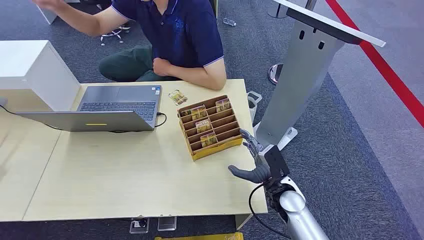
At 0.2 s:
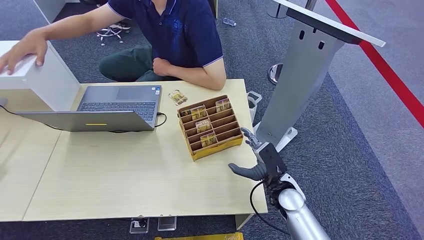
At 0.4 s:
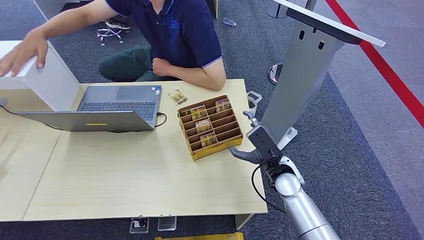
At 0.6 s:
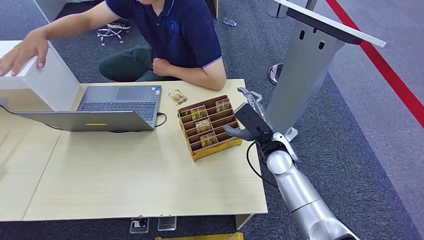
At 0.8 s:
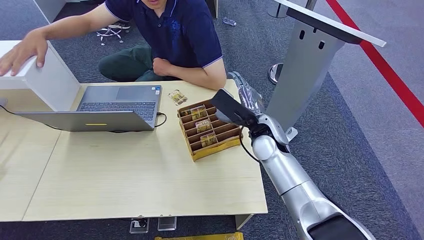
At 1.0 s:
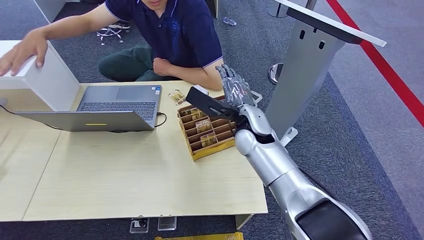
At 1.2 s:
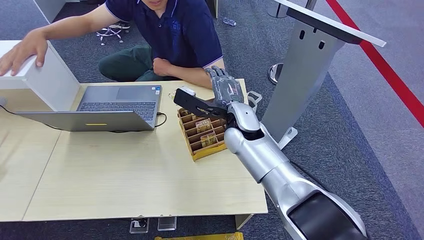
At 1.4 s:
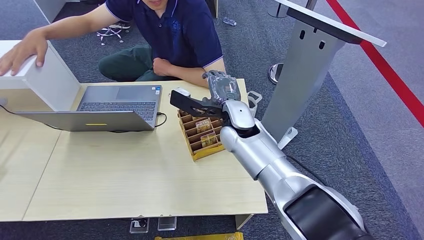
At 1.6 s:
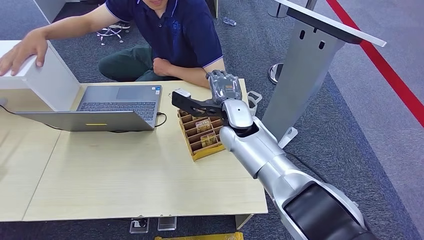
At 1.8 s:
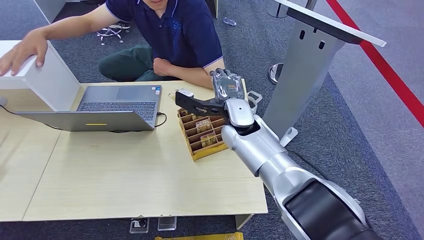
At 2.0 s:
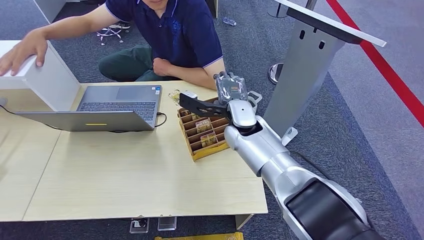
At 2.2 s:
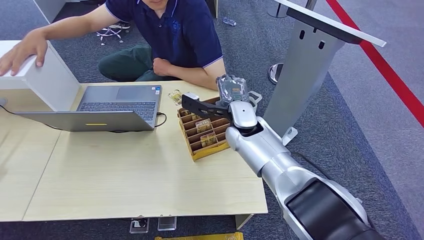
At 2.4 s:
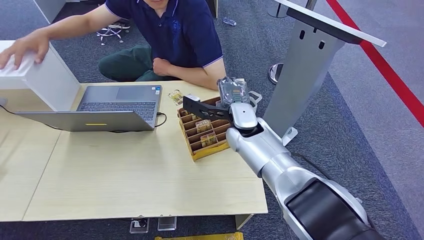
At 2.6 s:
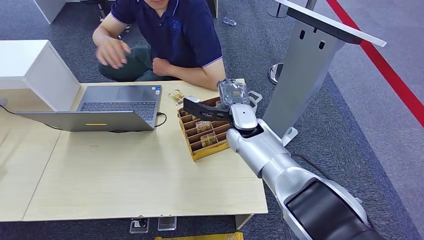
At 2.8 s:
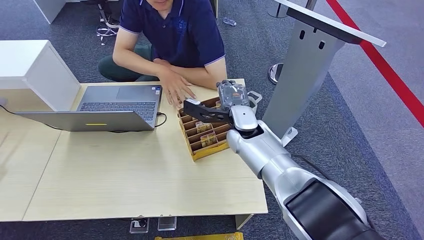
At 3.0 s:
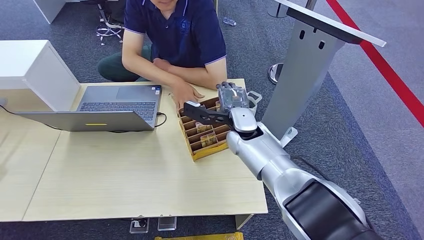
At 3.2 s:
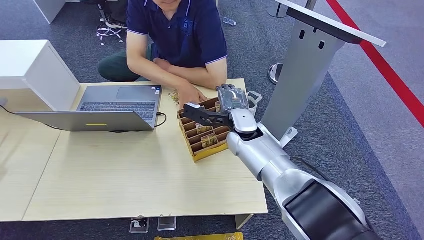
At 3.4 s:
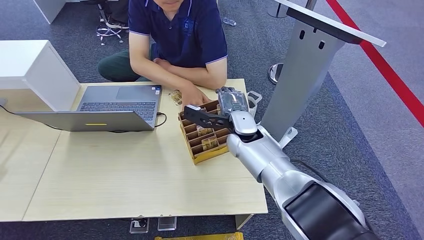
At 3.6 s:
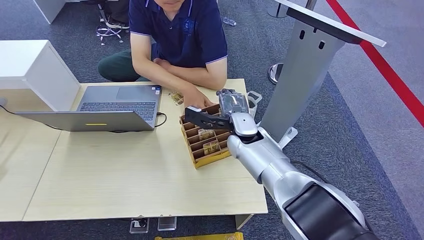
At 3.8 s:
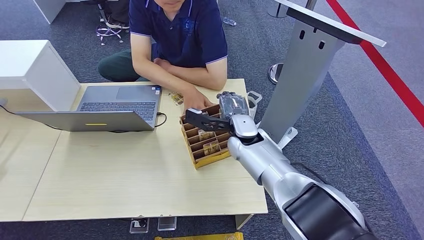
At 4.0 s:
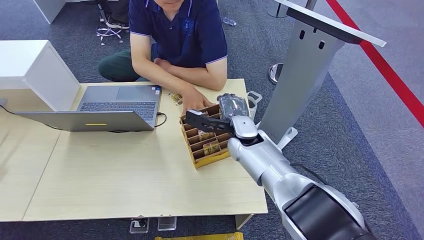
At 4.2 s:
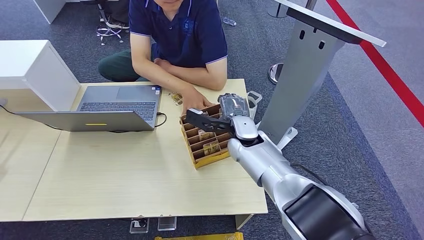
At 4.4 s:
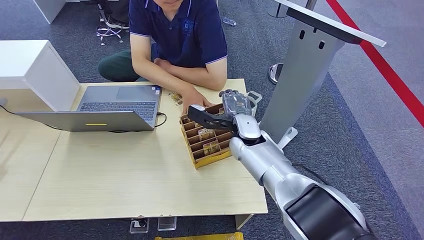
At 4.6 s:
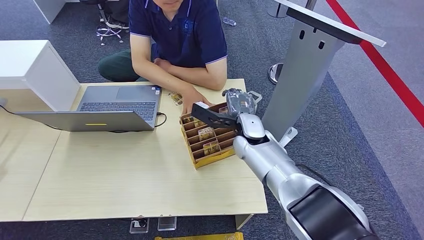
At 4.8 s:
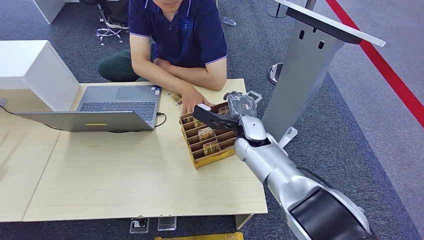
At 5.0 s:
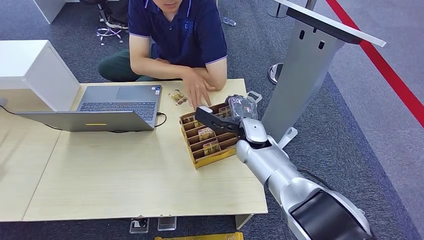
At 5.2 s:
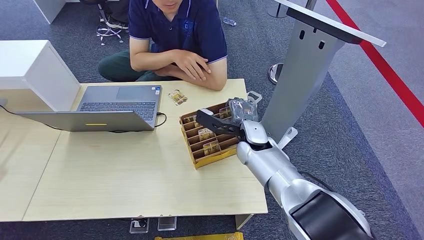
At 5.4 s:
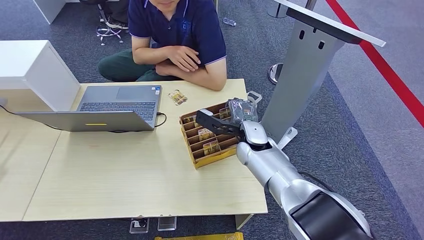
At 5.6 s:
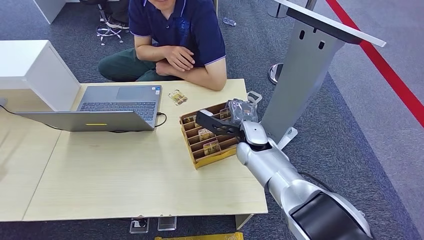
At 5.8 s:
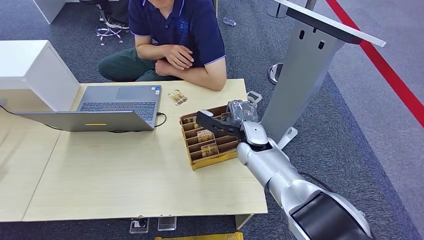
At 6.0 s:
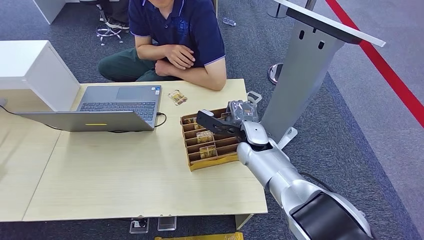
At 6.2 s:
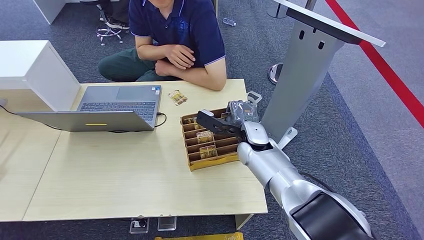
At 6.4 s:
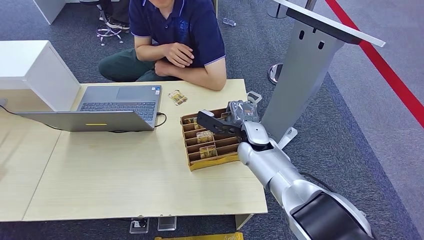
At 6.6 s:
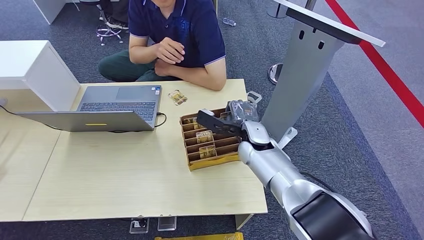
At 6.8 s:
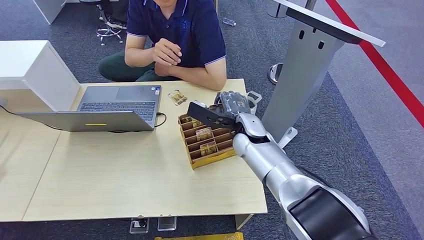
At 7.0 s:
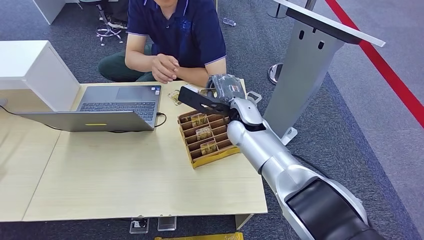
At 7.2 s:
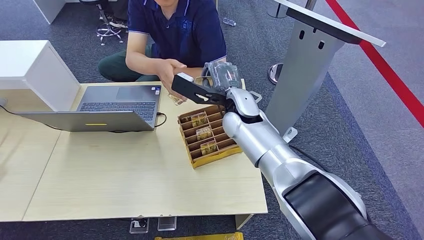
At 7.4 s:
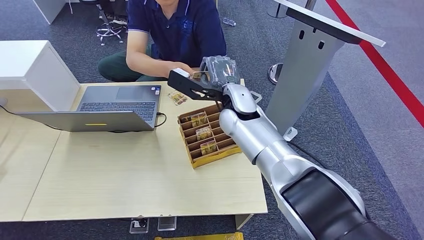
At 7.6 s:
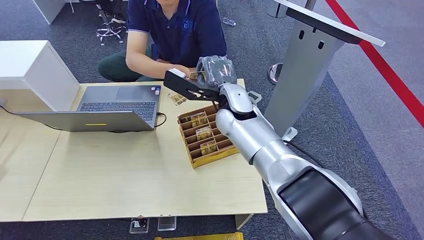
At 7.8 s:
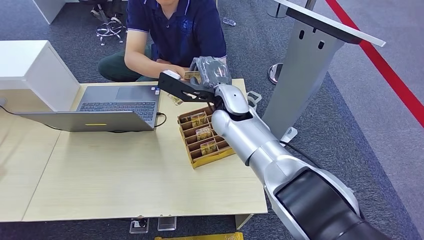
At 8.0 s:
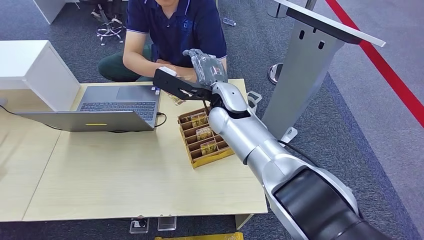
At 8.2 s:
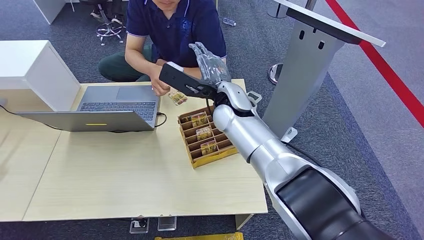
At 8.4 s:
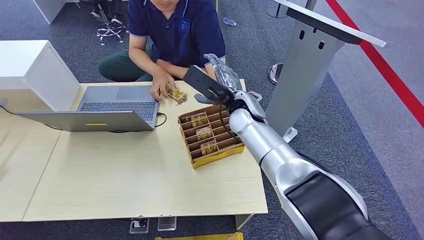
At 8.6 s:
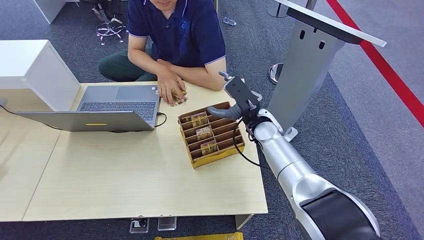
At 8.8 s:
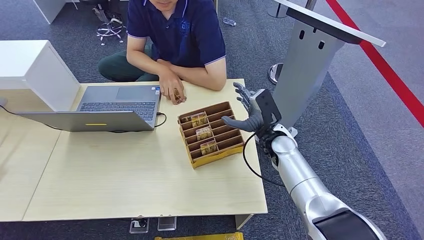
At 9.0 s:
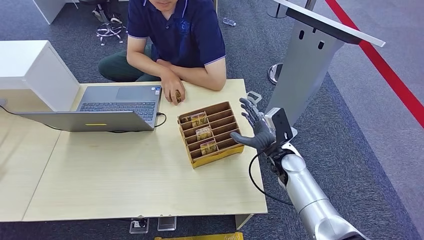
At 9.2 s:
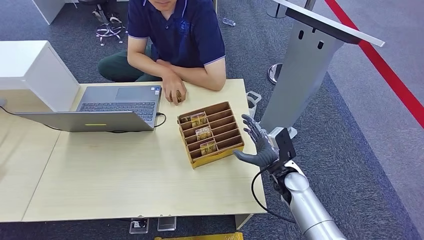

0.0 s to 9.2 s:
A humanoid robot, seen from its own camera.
Step, 0.0 to 6.8 s: Pick up the room card from the card holder.
Step, 7.0 to 9.2 s: Hand the room card to the target.
1.6 to 6.2 s: The hands make only small movements.
6.2 to 7.6 s: There are only small adjustments of the hands.
7.6 to 9.2 s: The right hand travels backward and downward by approximately 10 cm.
